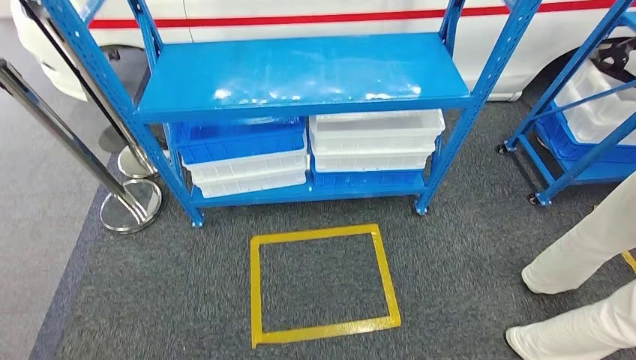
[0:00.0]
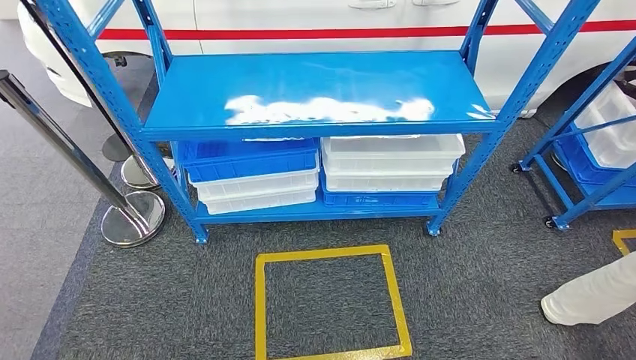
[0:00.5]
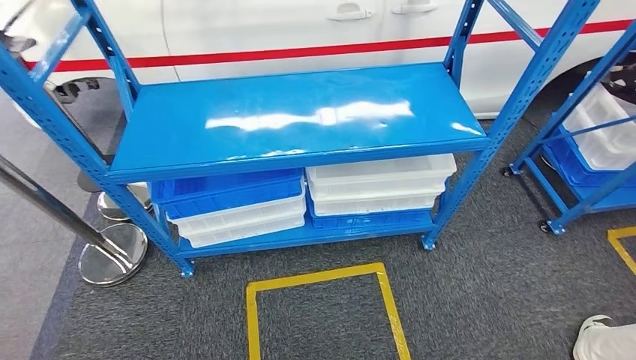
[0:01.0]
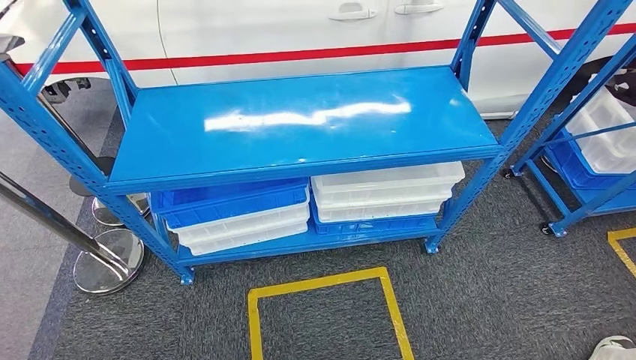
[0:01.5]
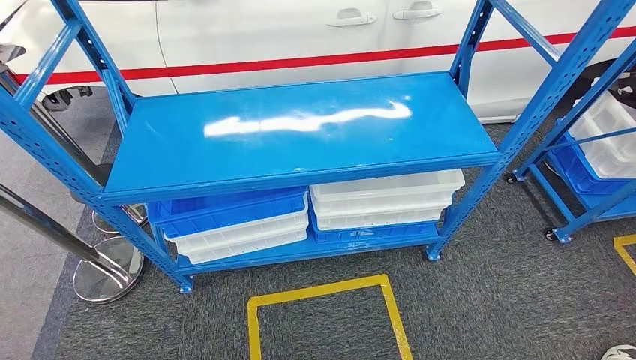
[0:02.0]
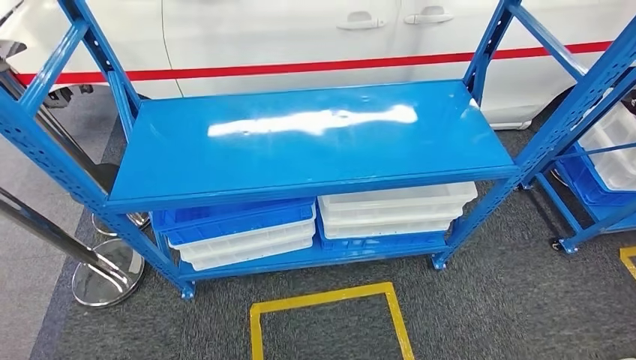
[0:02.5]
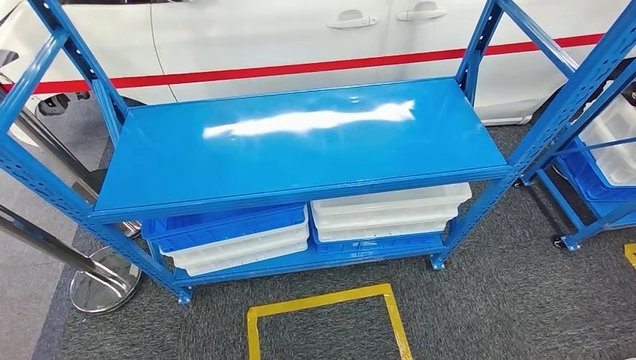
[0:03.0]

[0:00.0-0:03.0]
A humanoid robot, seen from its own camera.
Step, 0:00.0 to 0:03.0: Move to the initial position of the shelf.

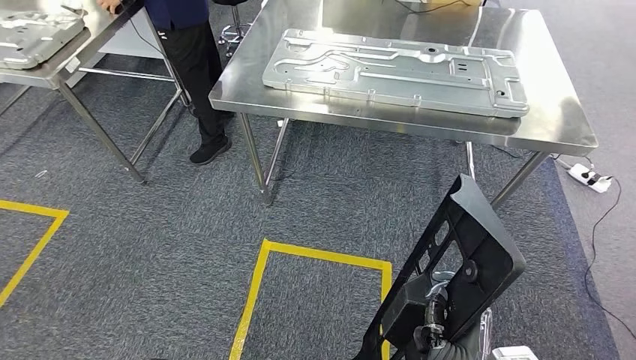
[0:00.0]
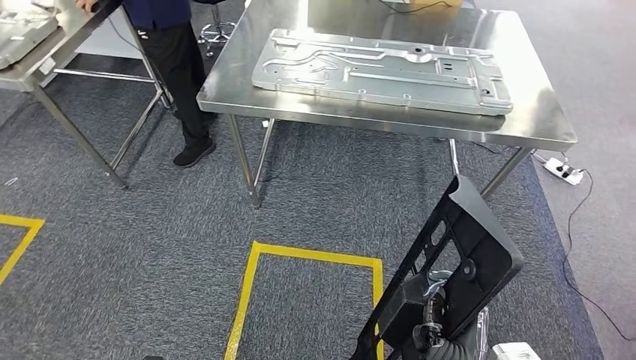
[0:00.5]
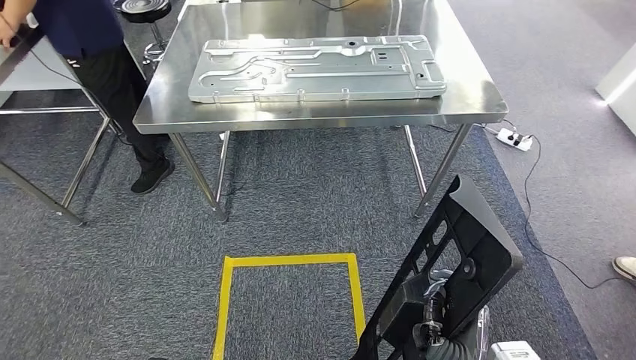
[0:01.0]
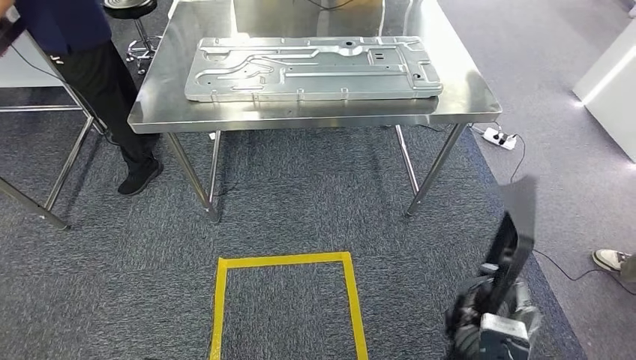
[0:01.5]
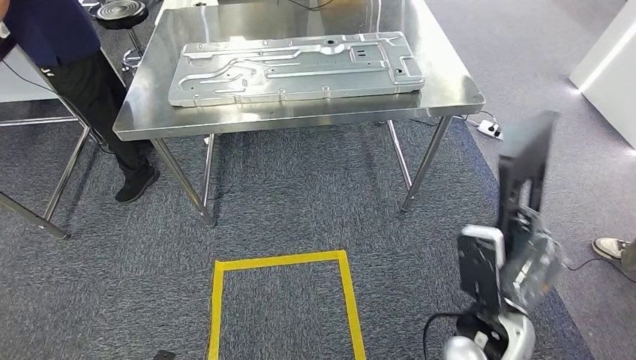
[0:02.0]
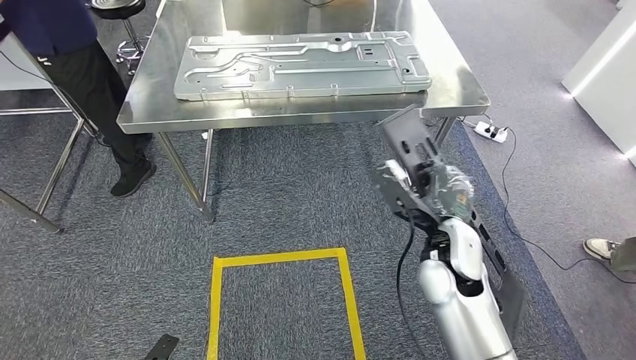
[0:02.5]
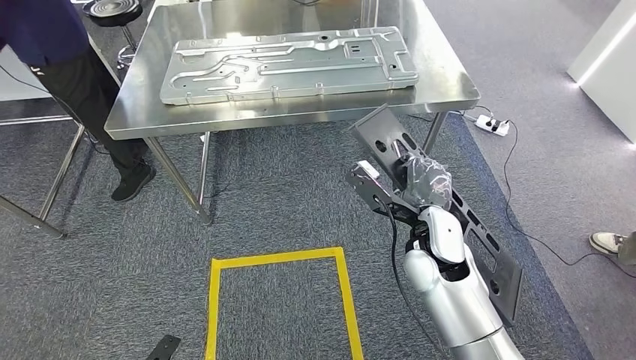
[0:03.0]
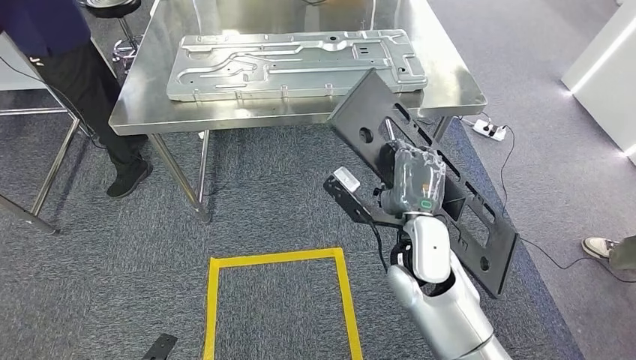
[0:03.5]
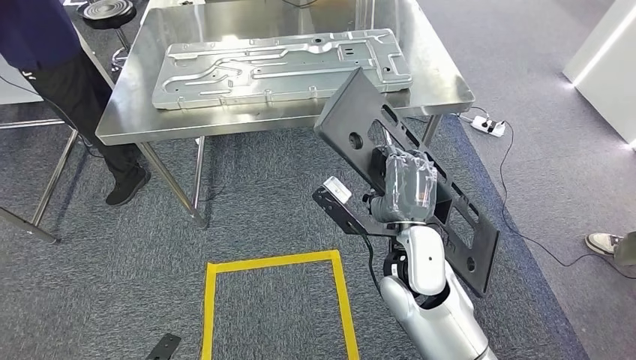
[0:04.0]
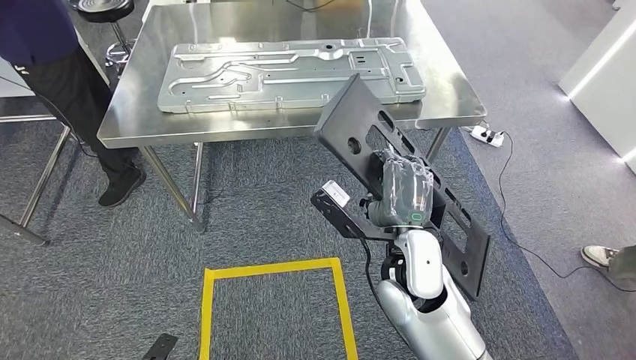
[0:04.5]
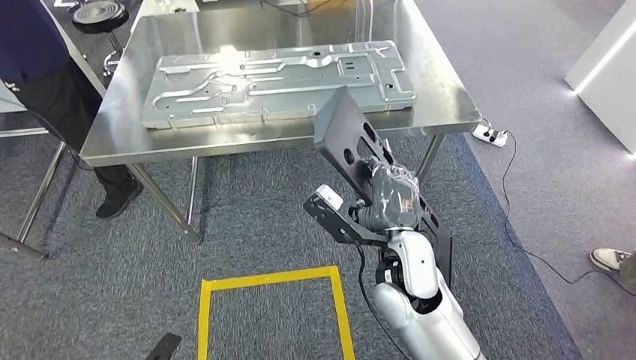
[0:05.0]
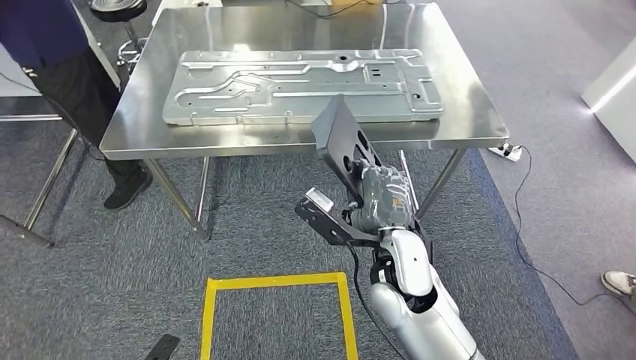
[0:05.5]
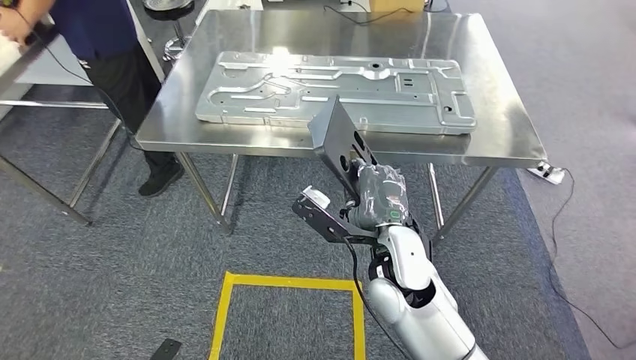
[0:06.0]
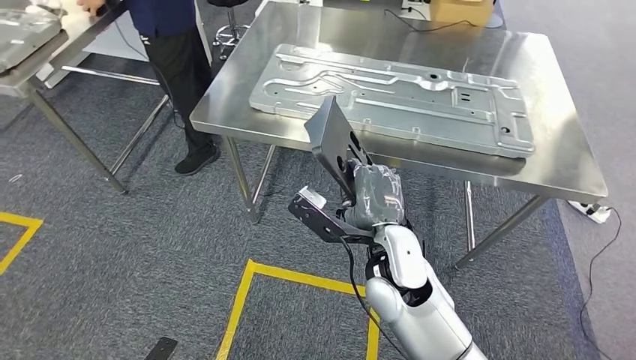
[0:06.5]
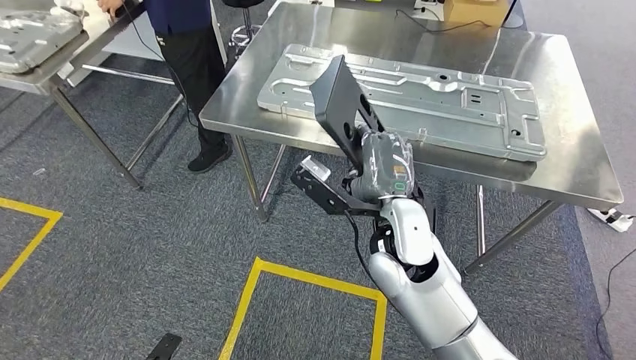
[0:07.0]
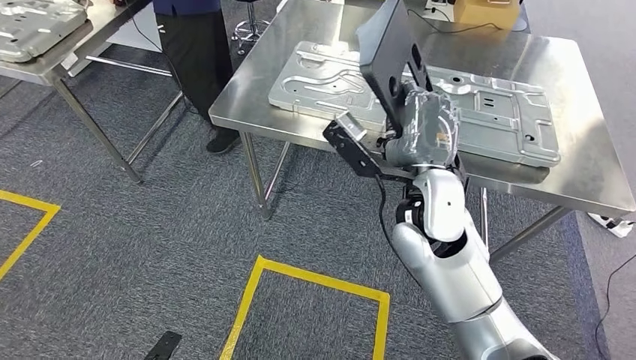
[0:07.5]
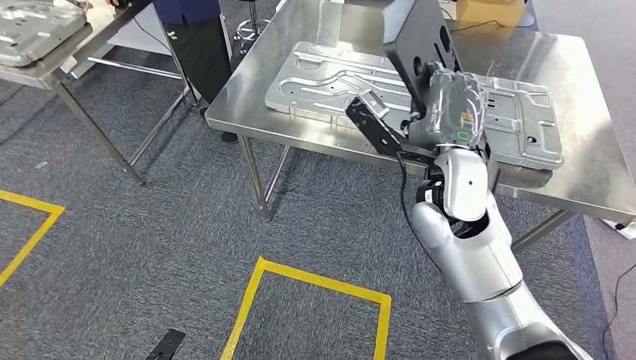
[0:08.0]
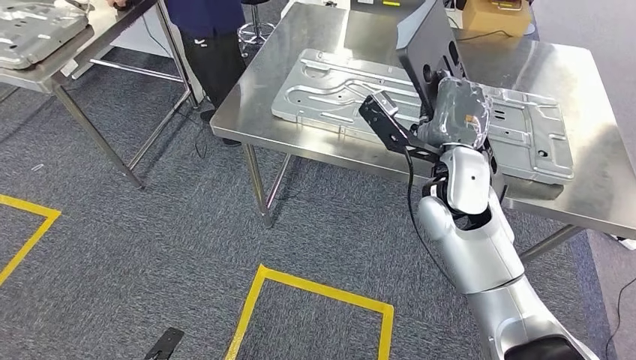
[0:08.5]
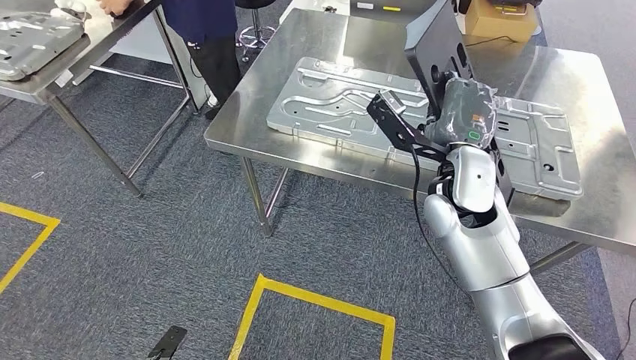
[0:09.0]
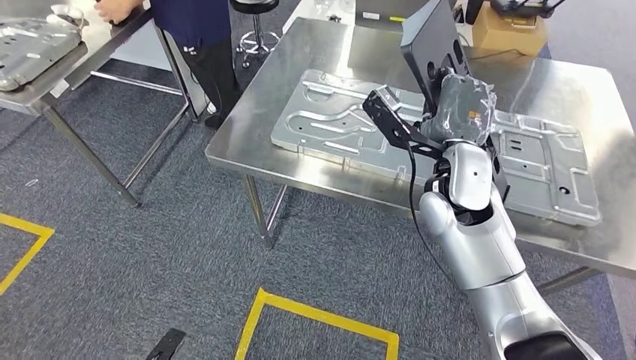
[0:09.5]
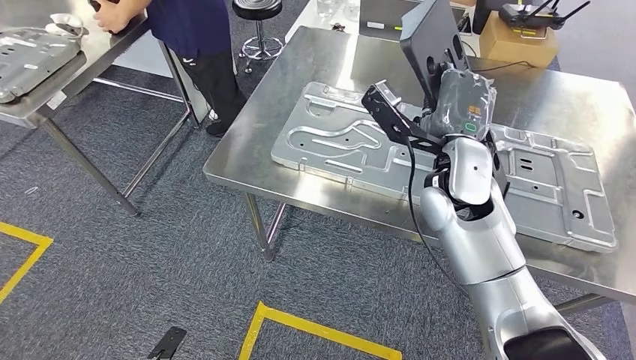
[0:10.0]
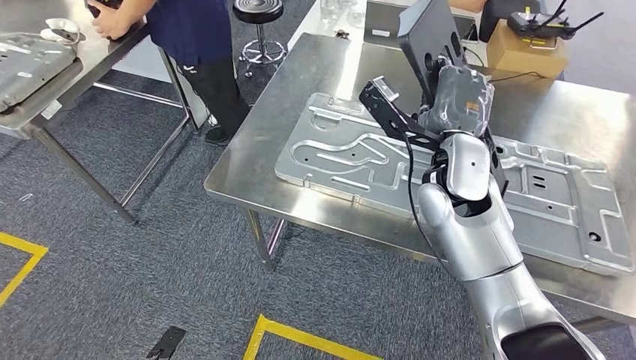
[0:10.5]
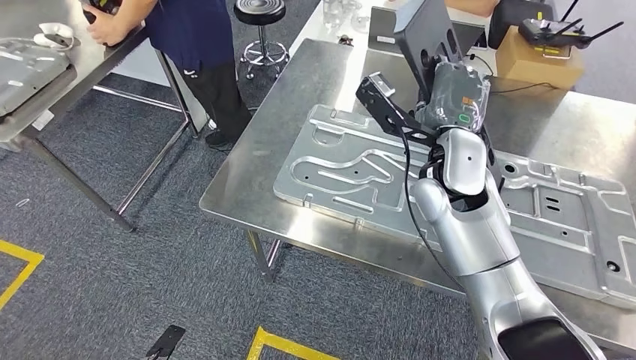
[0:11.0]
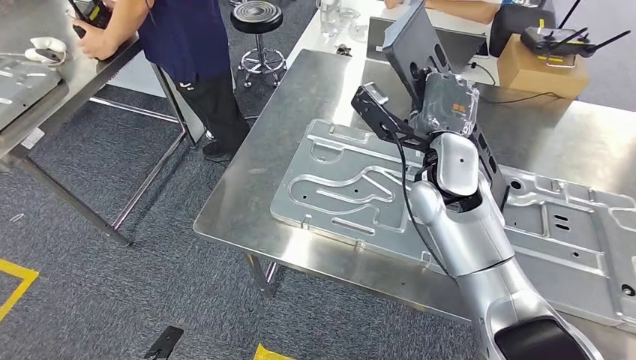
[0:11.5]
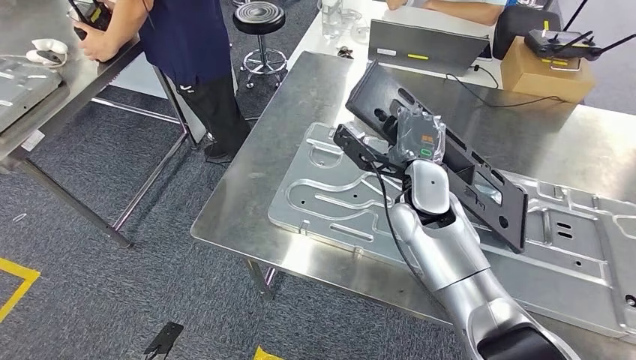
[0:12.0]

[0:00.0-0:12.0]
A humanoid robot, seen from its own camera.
Step, 0:00.0 to 0:10.5: Move the large material to the workbench.

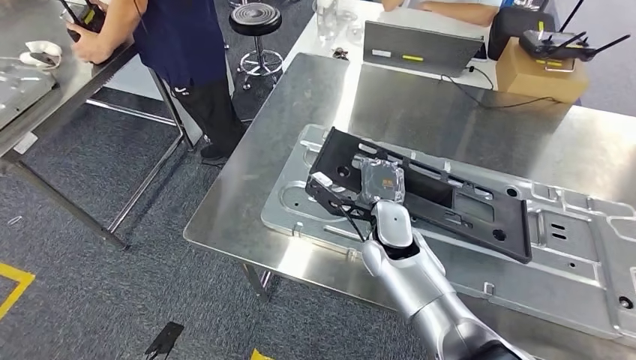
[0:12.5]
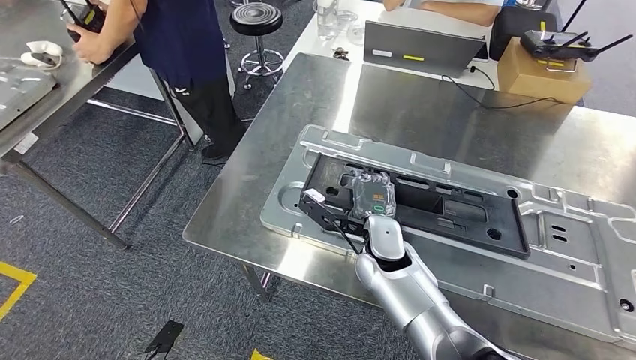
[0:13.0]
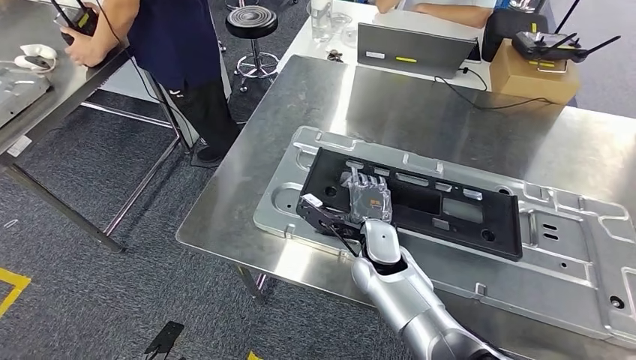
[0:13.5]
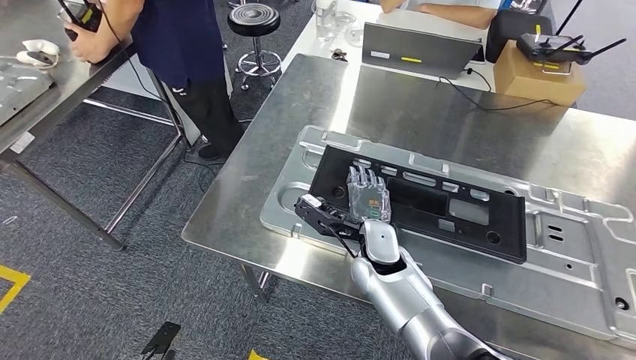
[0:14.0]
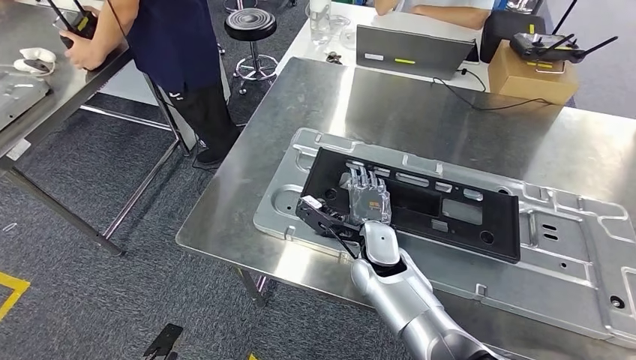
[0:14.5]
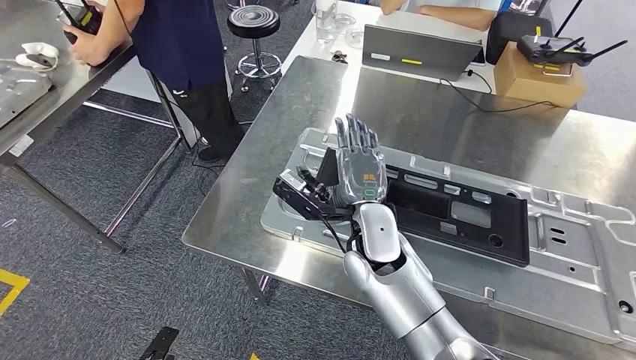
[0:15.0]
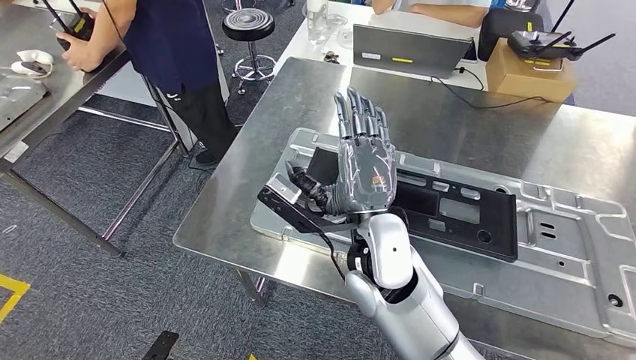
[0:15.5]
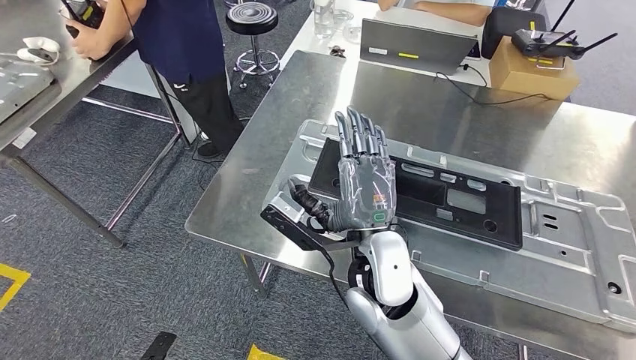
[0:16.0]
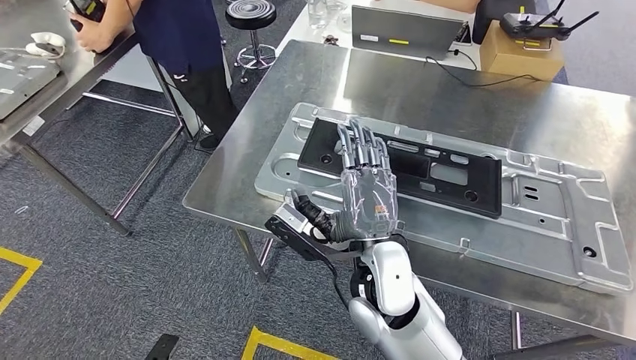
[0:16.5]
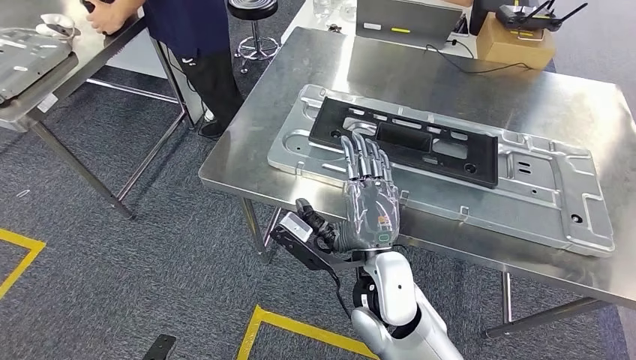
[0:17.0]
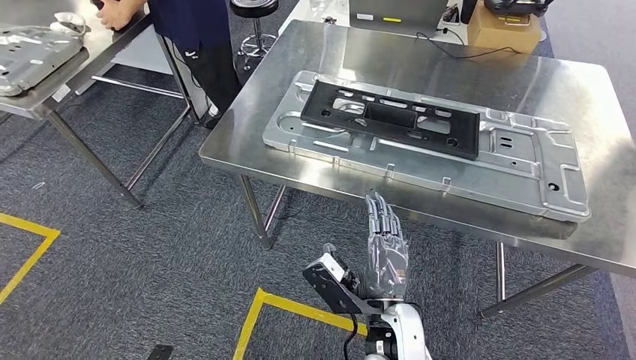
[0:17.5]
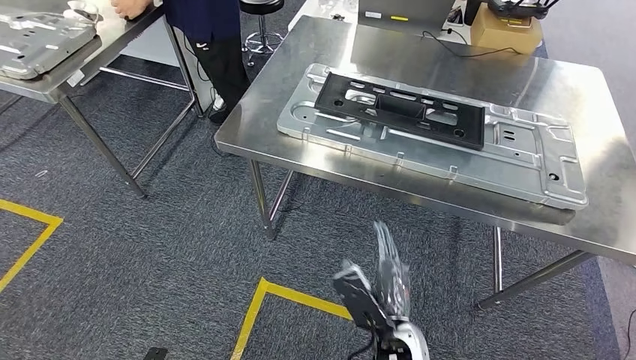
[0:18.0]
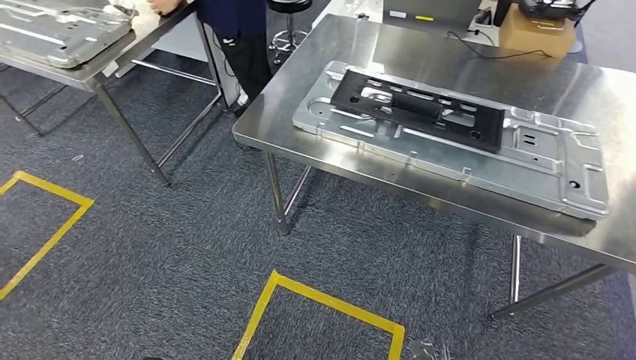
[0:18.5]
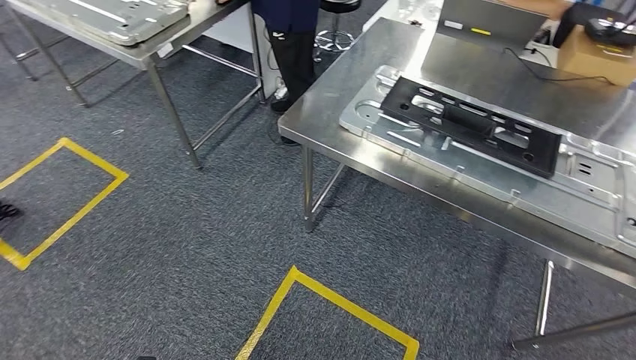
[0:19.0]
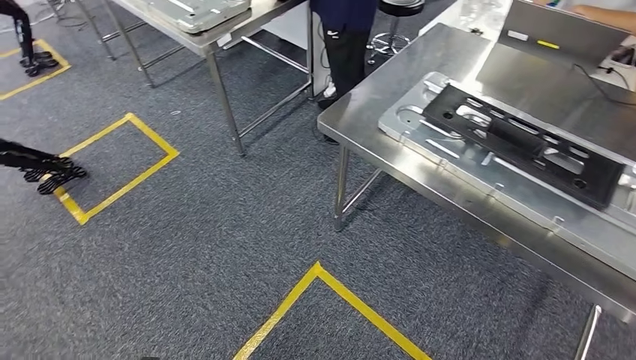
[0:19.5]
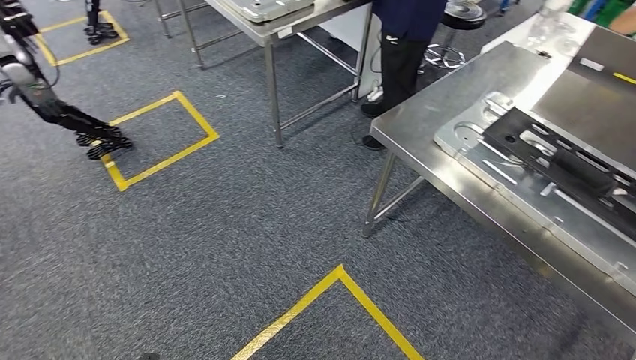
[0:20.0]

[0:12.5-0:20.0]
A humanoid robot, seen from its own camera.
Step, 0:12.5 to 0:16.5: Insert the large material into the corresponding slot on the workbench.
